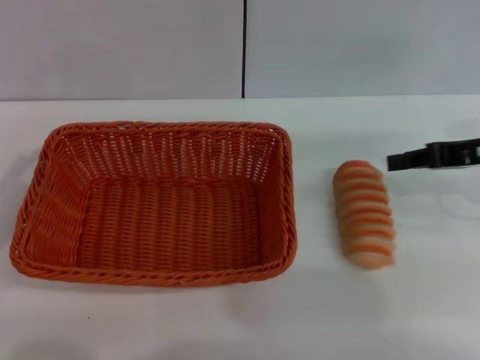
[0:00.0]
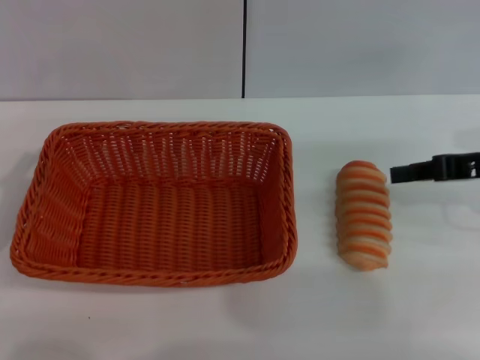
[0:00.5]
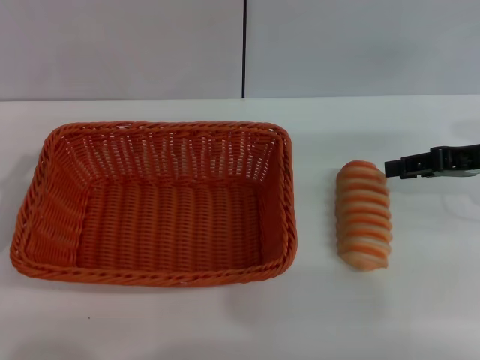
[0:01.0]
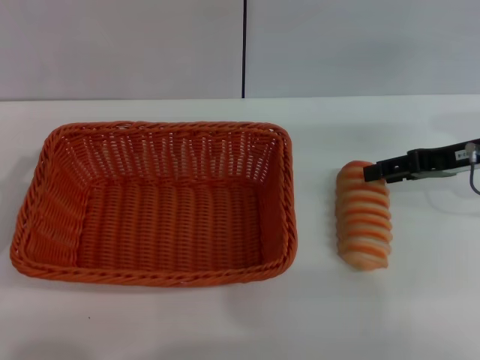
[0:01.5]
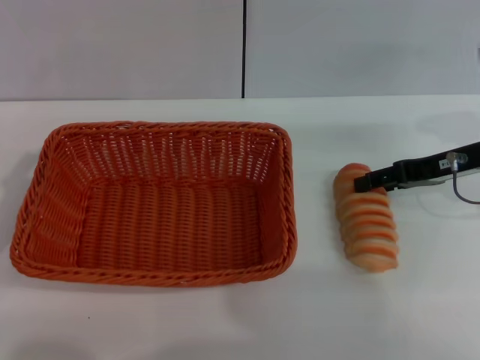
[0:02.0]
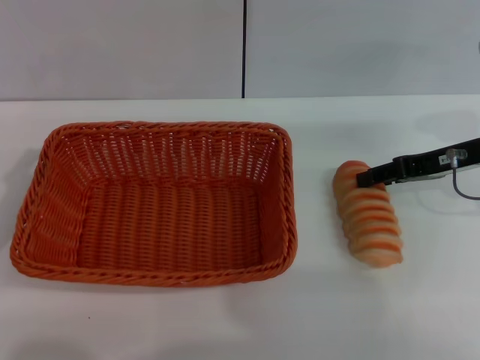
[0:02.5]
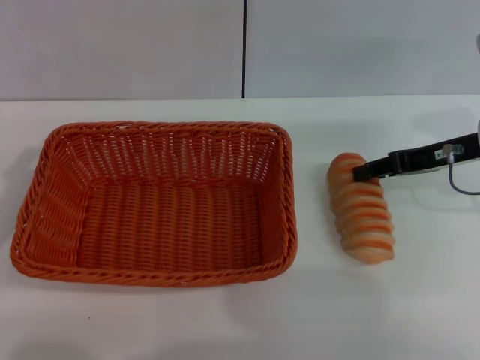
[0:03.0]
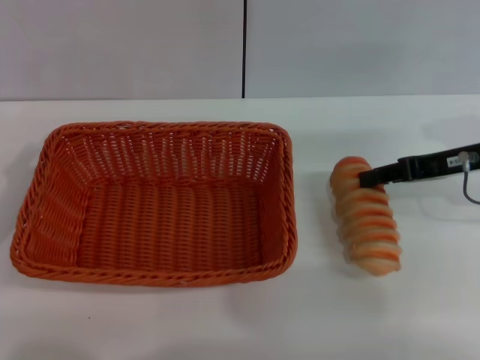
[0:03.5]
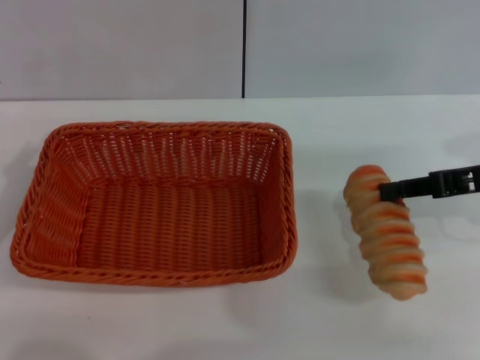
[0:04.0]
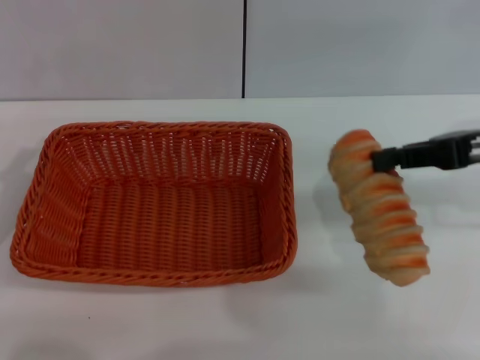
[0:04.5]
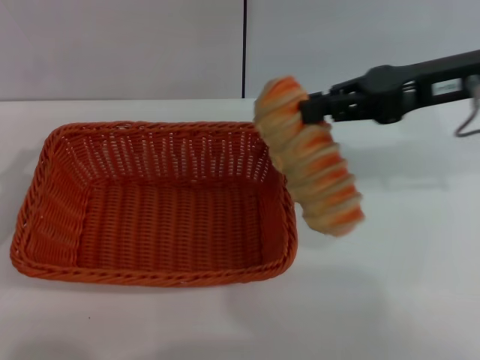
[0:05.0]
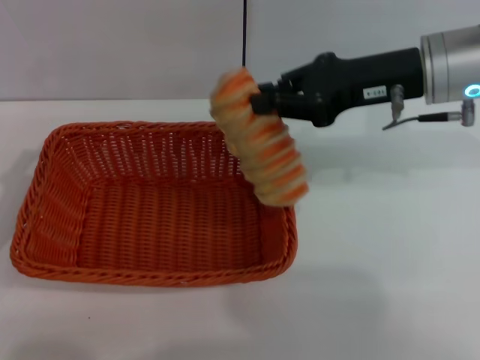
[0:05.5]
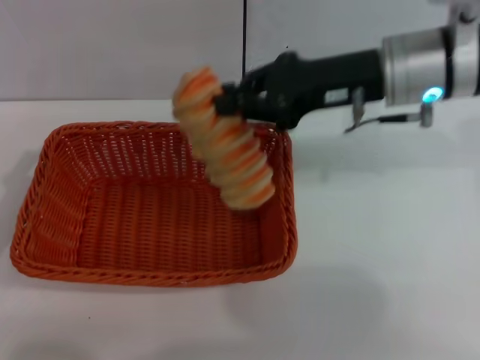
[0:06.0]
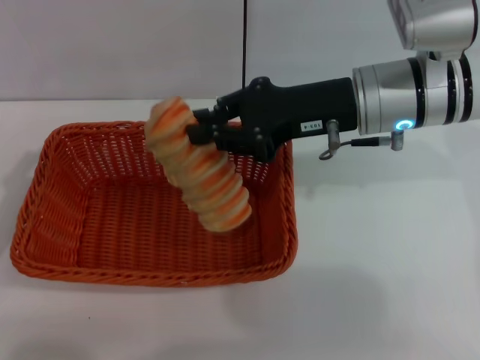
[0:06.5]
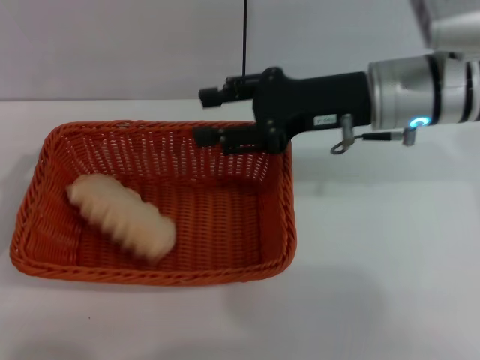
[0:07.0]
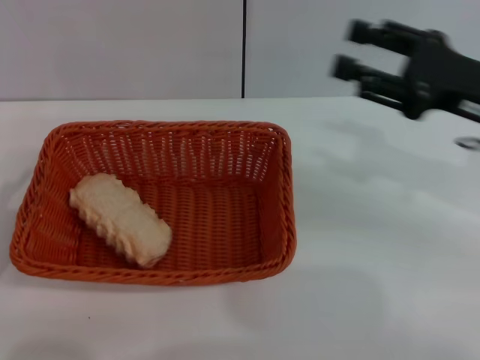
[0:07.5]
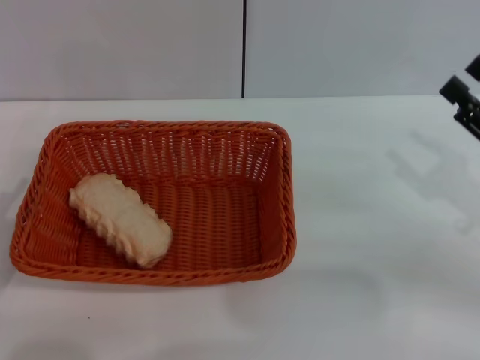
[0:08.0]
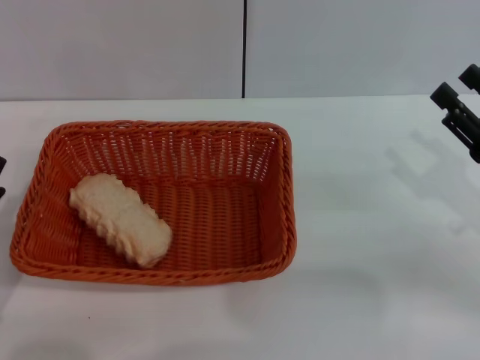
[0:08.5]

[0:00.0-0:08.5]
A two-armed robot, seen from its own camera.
Step, 0:00.0 to 0:03.5: Pick up the long bread with the right gripper.
Step, 0:04.0 to 0:07.0: Place the long bread into the light basket with the right gripper.
0:00.0 to 0:02.0: The right gripper opens up.
0:02.0 to 0:04.0: The right gripper heads backward, covering approximately 5 cm, and closes.
0:04.0 to 0:06.5: The right gripper shifts roughly 15 cm to the left.
0:06.5 to 0:08.5: The right gripper shifts approximately 20 cm to the right, backward and downward, and opens. The left gripper travels backward by about 5 cm.

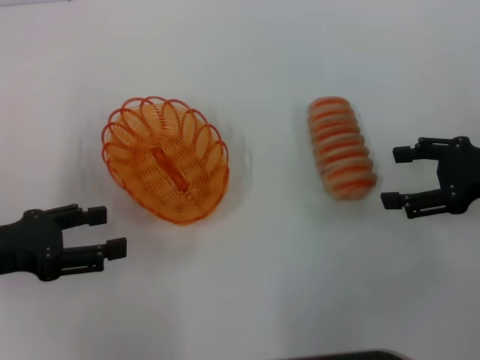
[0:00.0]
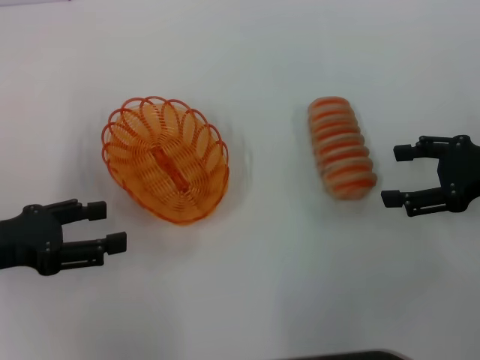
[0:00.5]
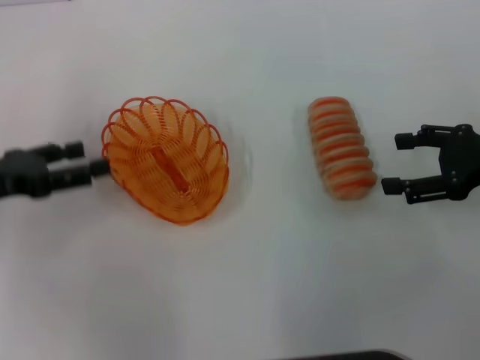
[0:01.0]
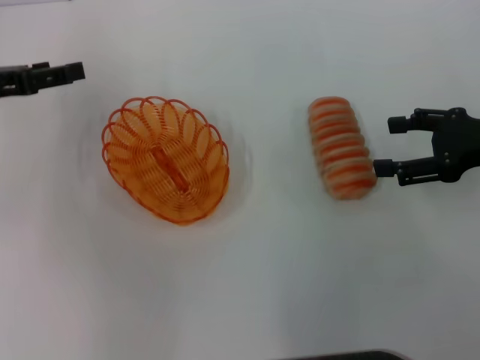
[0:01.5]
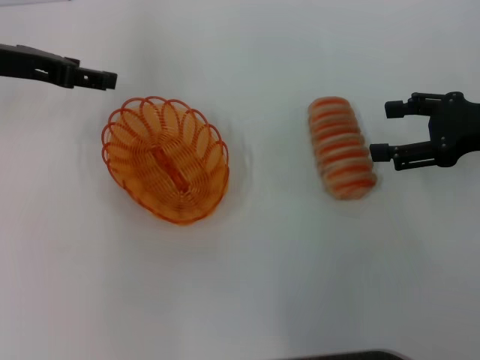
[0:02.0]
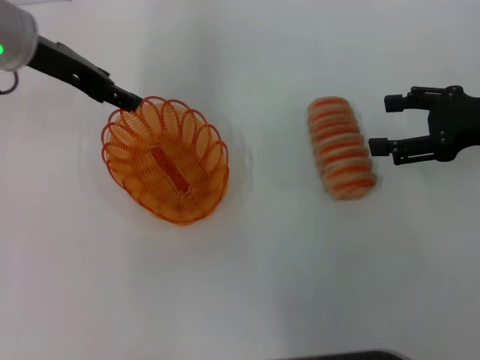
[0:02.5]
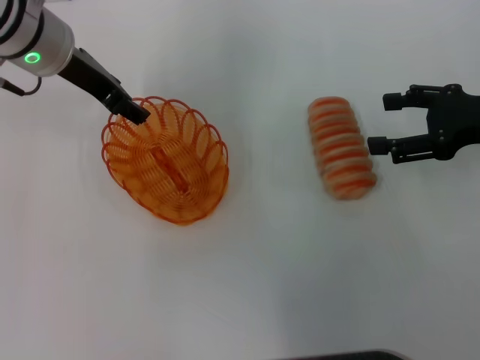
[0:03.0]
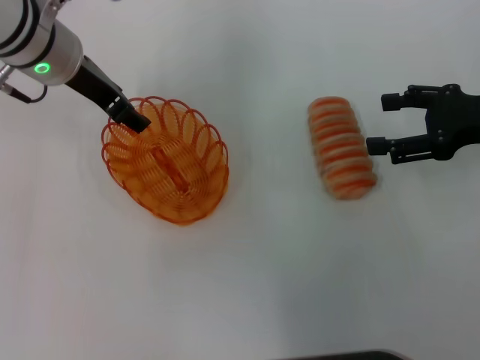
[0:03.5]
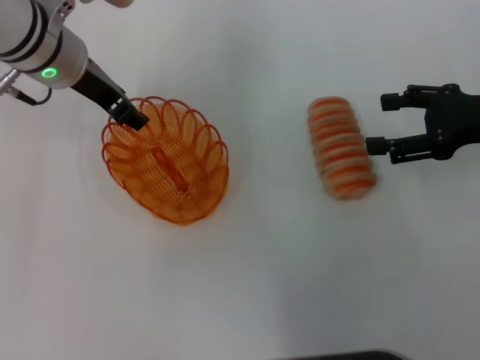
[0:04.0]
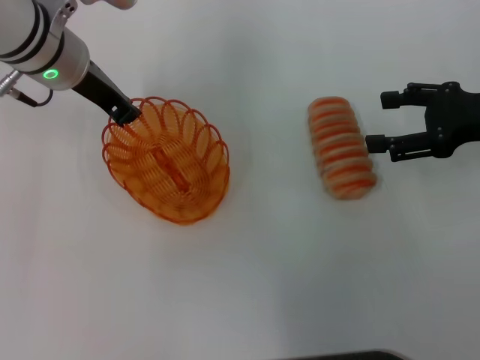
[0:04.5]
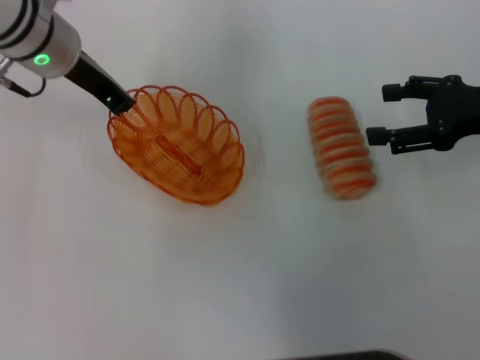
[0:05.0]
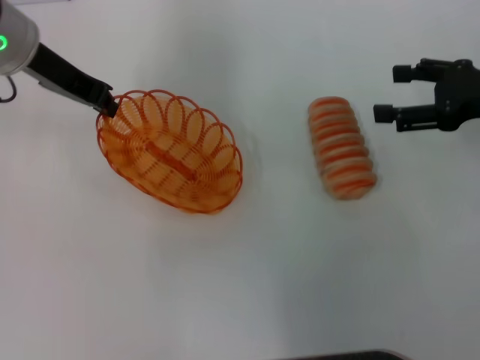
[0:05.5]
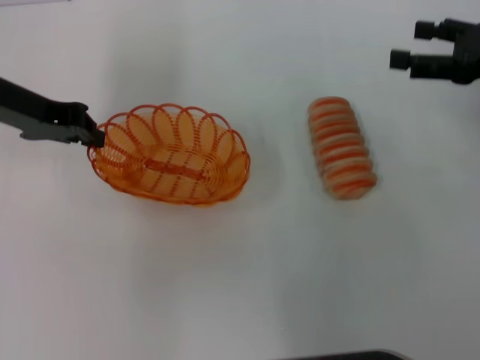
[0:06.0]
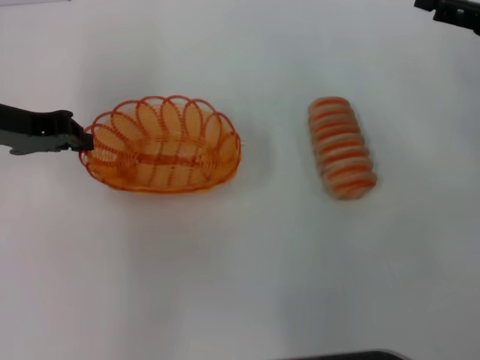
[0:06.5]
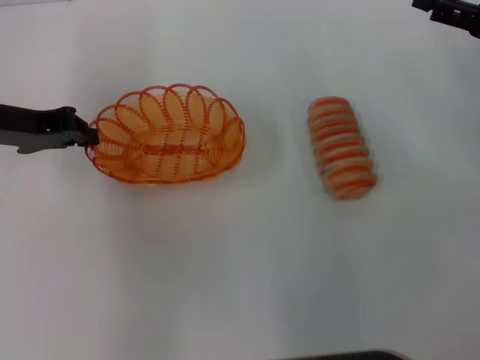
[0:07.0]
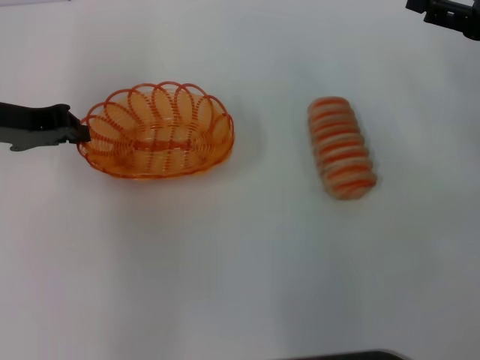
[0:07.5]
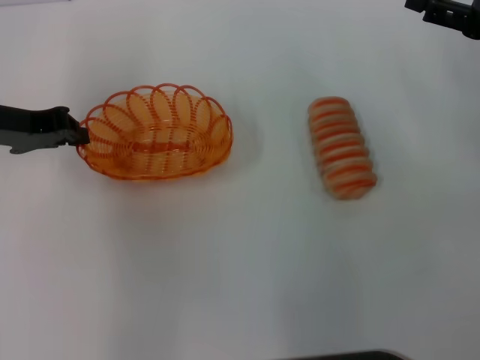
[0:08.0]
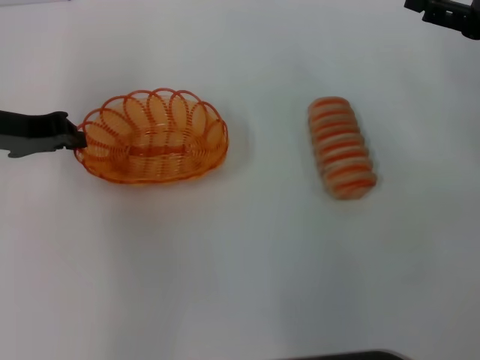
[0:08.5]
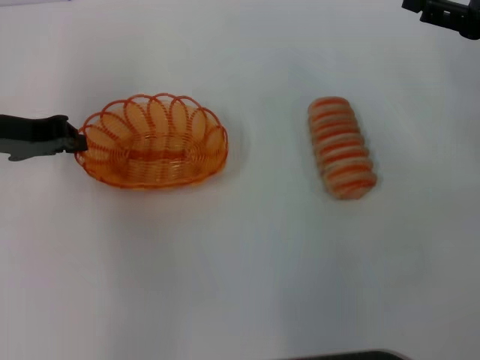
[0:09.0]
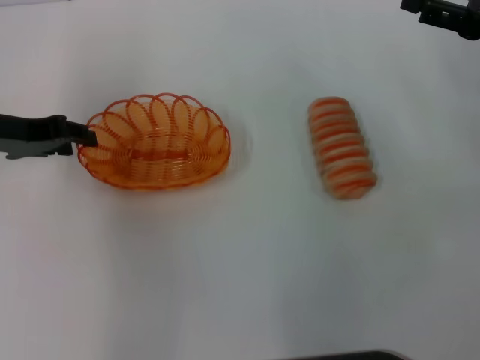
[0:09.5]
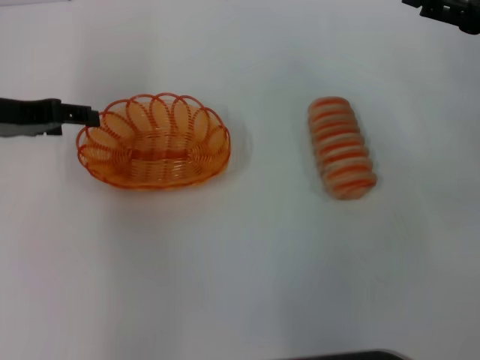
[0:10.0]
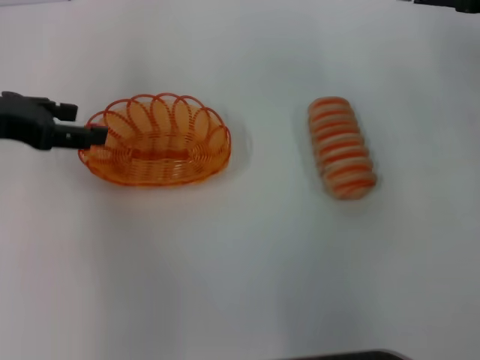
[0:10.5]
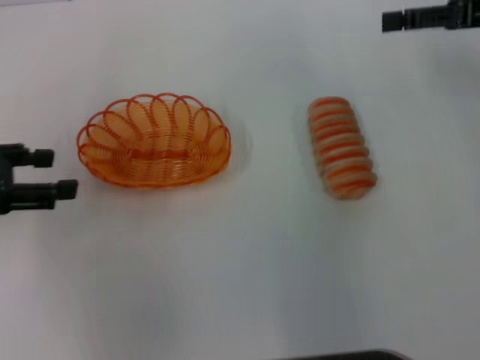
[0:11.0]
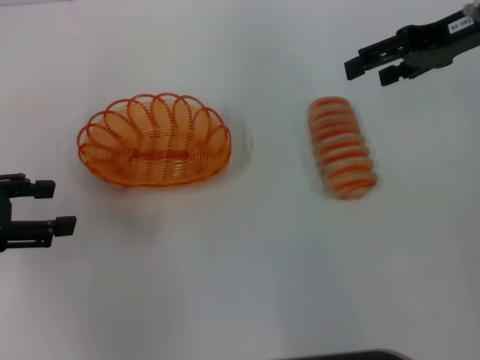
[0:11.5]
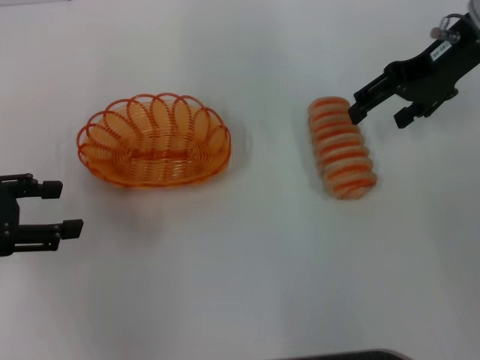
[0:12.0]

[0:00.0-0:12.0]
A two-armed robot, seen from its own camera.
Step, 0:00.0 to 0:05.5: Pick up the basket with the left gripper.
Step, 0:06.0 to 0:10.0: Place the basket in the center of view with the left gripper.
0:00.0 to 0:02.0: The left gripper is displaced forward and upward by approximately 20 cm.
0:02.0 to 0:04.0: The left gripper goes about 10 cm to the right.
0:04.0 to 0:06.0: The left gripper shifts approximately 10 cm to the left, and closes up.
0:06.0 to 0:08.0: The grippers make only small movements.
0:08.0 to 0:10.0: The left gripper opens its fingers.
0:10.0 to 0:12.0: The right gripper goes some 15 cm to the left, forward and upward, while the left gripper moves backward and to the left, approximately 10 cm.

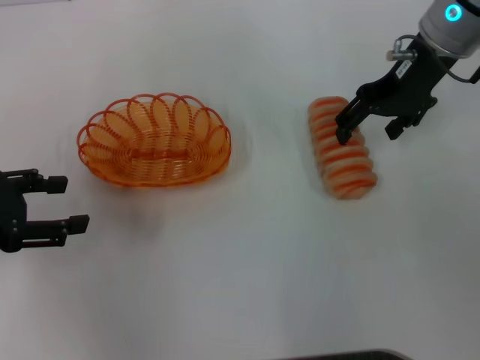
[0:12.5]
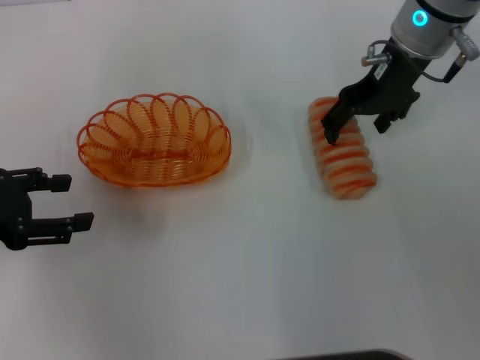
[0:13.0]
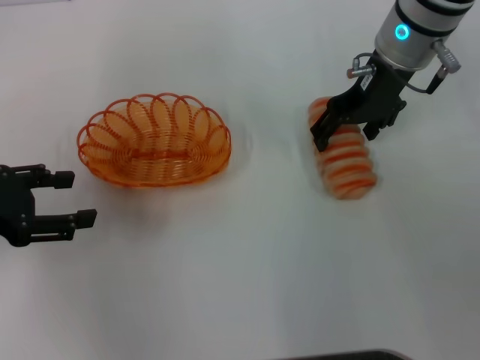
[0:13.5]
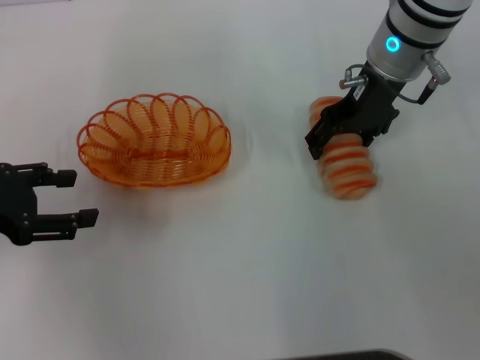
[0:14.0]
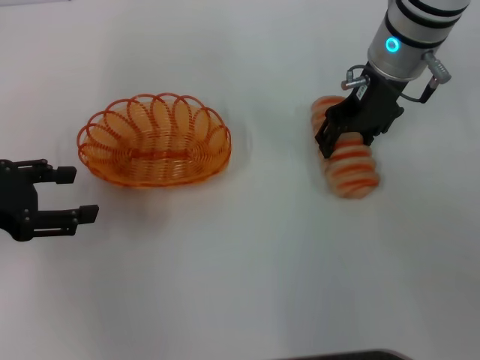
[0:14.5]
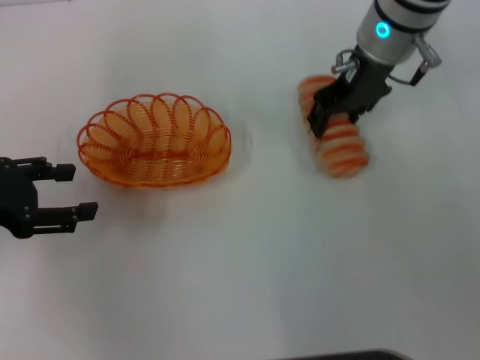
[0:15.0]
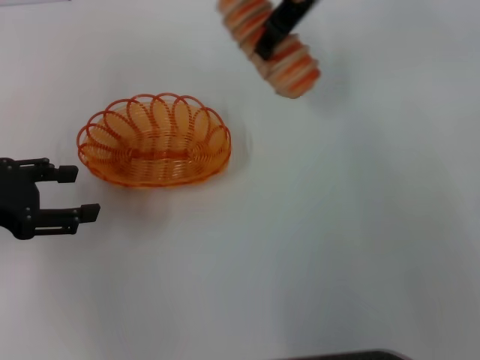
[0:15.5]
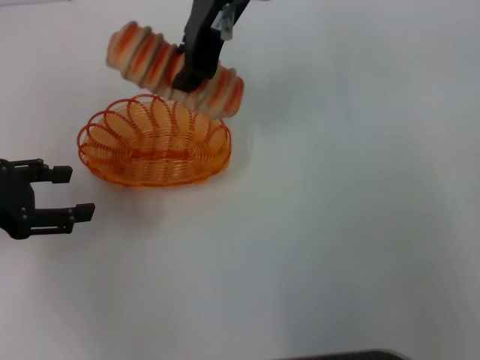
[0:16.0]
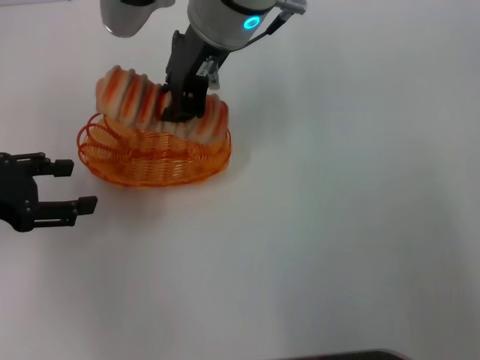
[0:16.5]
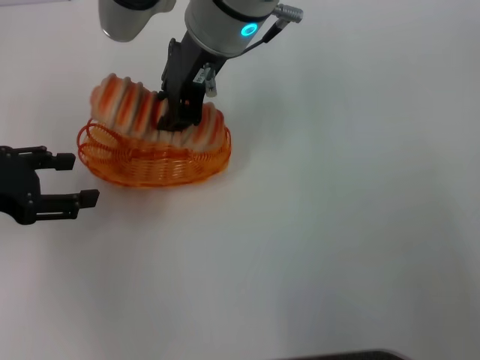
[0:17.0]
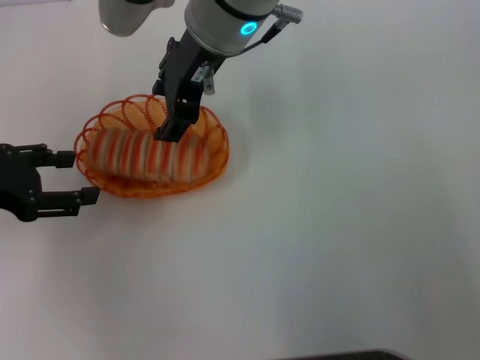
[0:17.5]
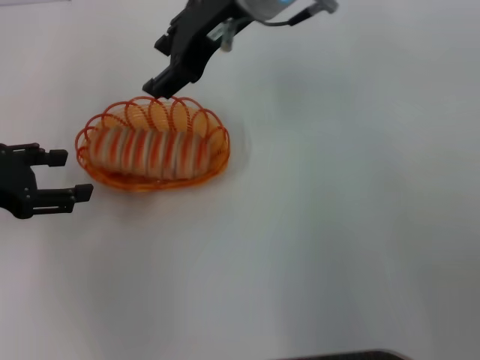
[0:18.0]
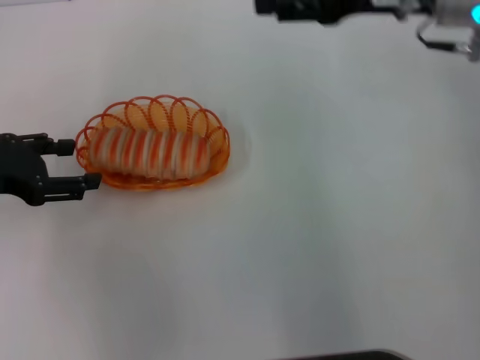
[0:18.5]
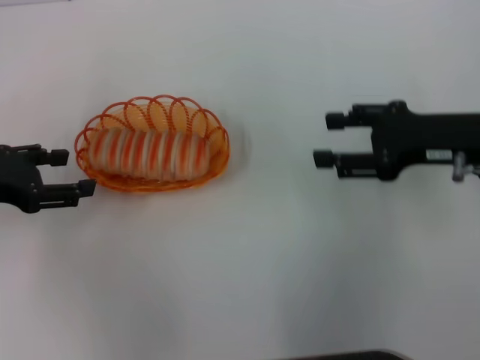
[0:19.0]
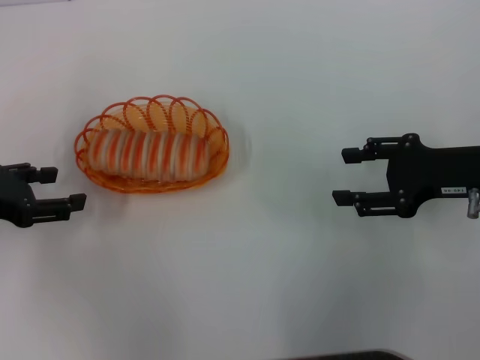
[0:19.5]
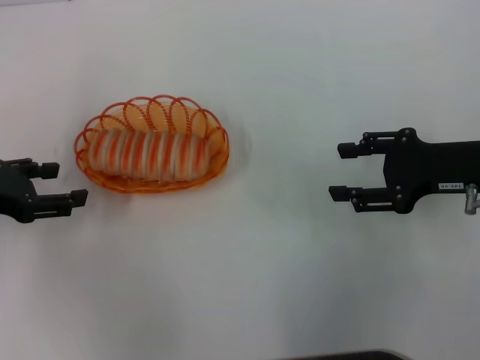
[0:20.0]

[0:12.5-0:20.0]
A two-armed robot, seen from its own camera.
Step, 0:12.5 to 0:15.0: Pick up the long bread with the right gripper.
Step, 0:15.5 to 0:17.5: Place the long bread into the basket with the right gripper.
0:12.5 to 0:14.5: The right gripper ends up about 5 cm from where it was.
0:14.5 to 0:16.5: The right gripper goes about 15 cm to the left and upward, and closes up.
0:16.5 to 0:18.0: The right gripper is displaced to the right by some 5 cm, and opens up.
0:18.0 to 0:20.0: The right gripper moves to the right, backward and downward, approximately 30 cm.
